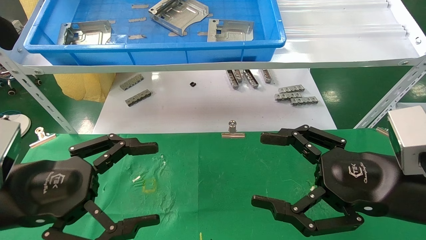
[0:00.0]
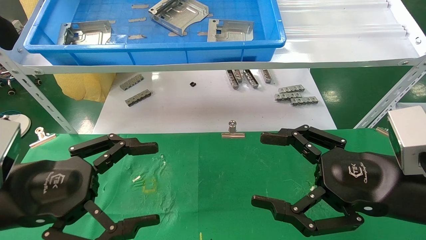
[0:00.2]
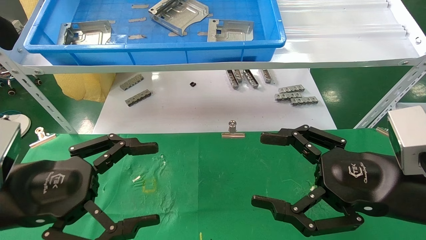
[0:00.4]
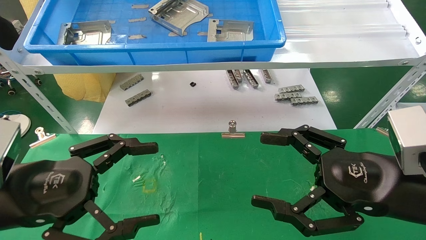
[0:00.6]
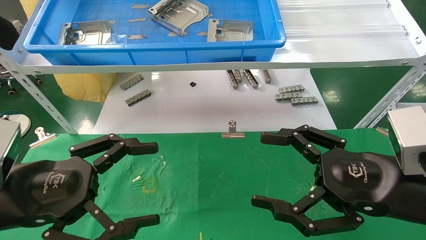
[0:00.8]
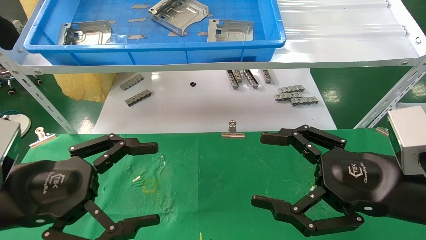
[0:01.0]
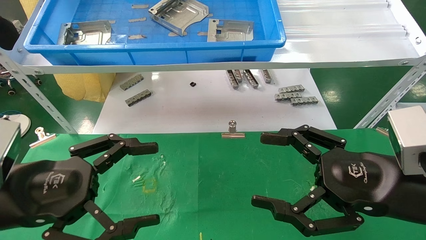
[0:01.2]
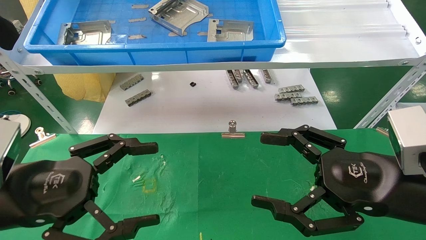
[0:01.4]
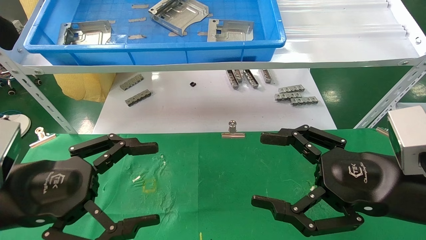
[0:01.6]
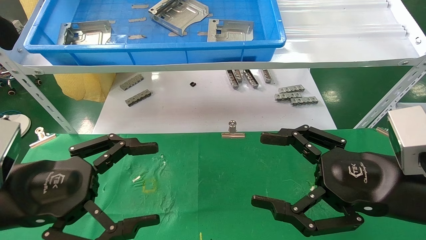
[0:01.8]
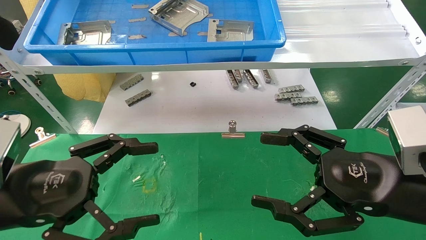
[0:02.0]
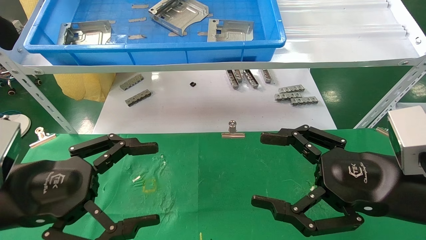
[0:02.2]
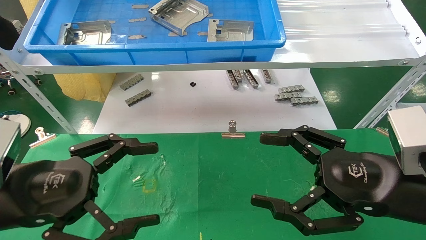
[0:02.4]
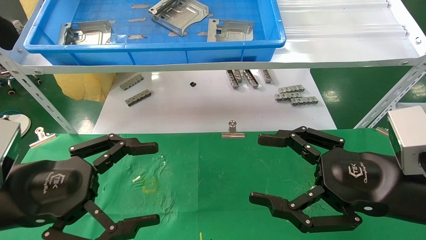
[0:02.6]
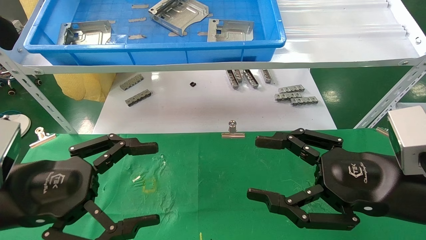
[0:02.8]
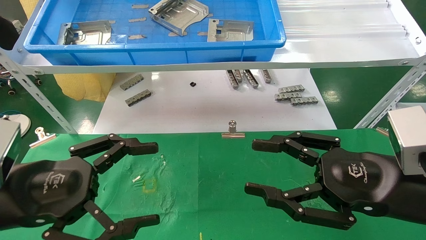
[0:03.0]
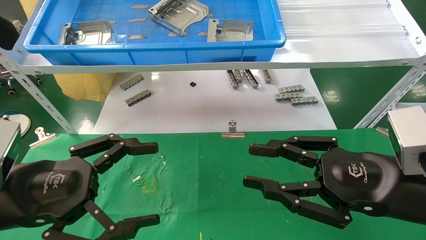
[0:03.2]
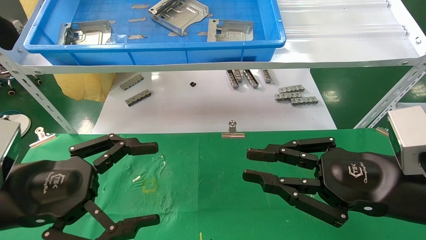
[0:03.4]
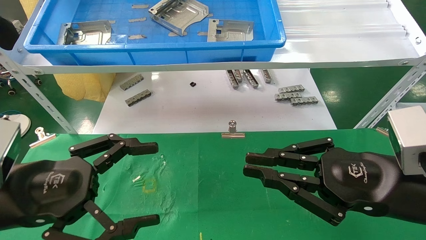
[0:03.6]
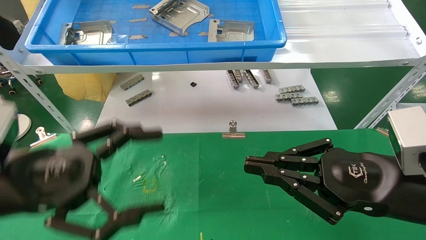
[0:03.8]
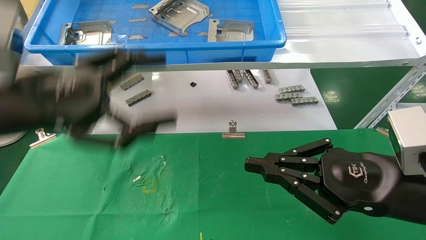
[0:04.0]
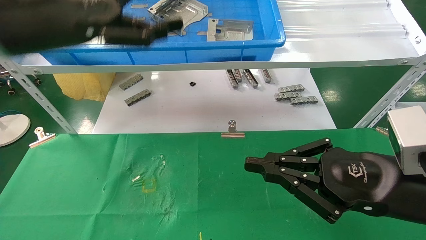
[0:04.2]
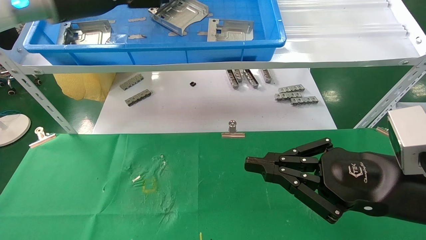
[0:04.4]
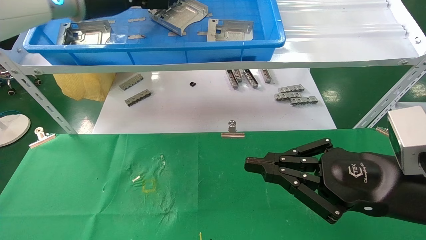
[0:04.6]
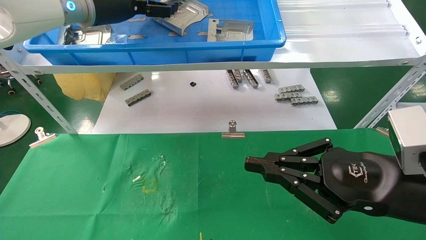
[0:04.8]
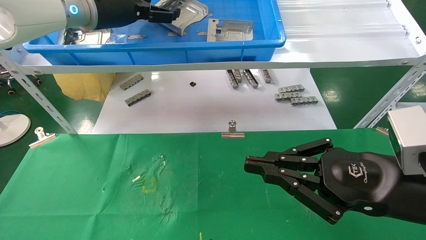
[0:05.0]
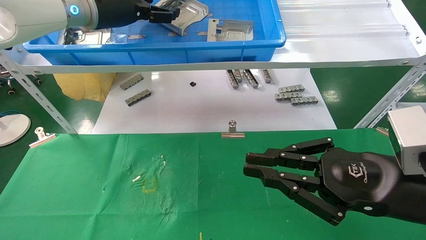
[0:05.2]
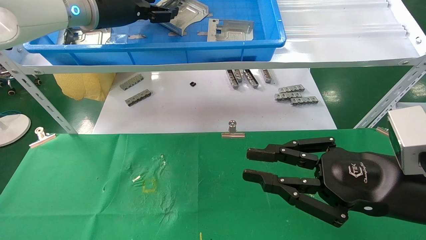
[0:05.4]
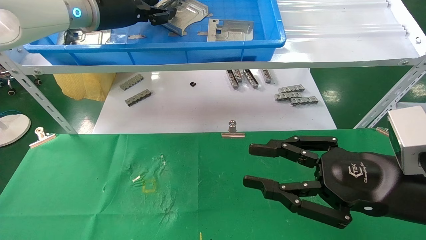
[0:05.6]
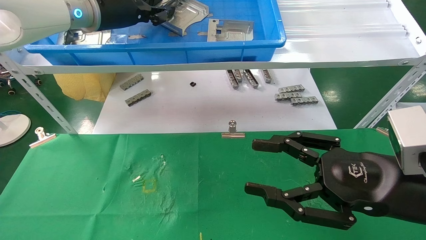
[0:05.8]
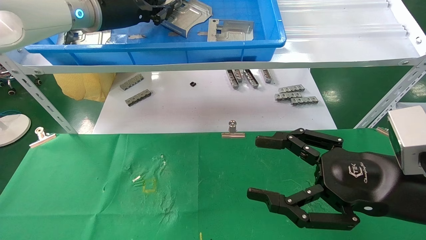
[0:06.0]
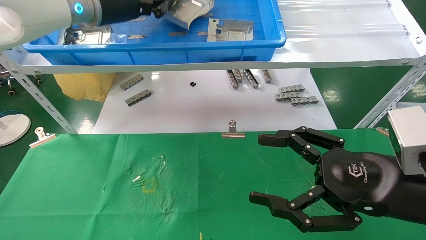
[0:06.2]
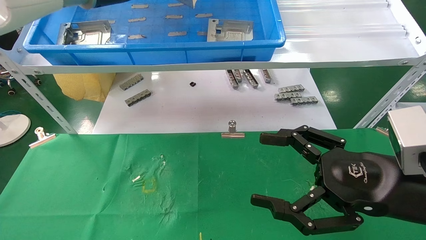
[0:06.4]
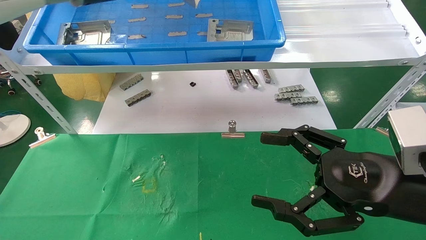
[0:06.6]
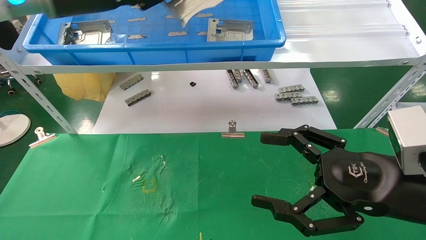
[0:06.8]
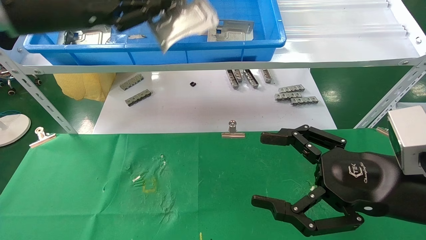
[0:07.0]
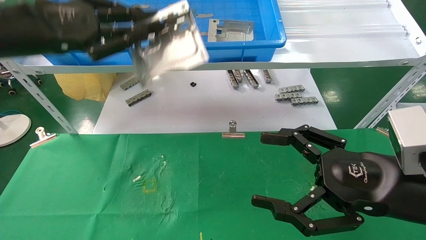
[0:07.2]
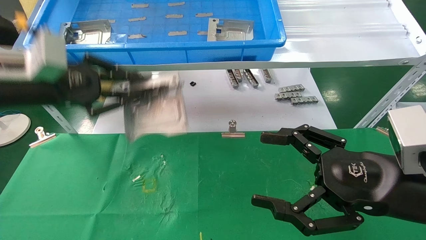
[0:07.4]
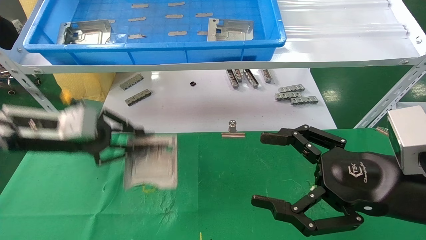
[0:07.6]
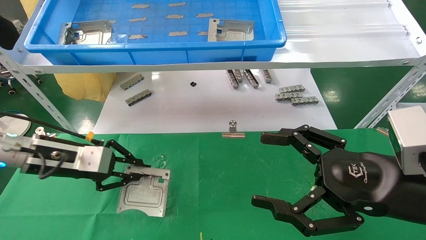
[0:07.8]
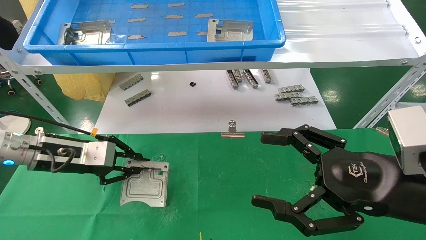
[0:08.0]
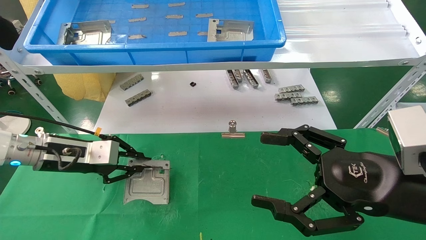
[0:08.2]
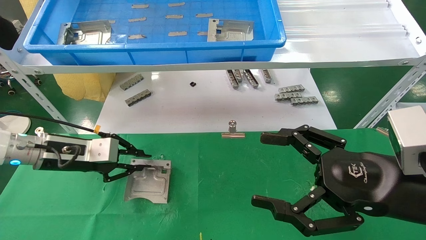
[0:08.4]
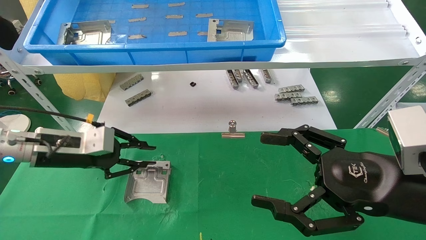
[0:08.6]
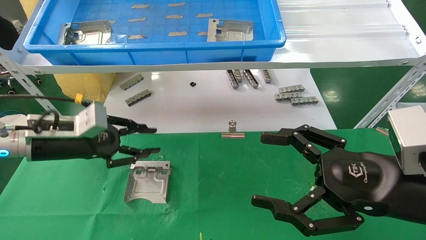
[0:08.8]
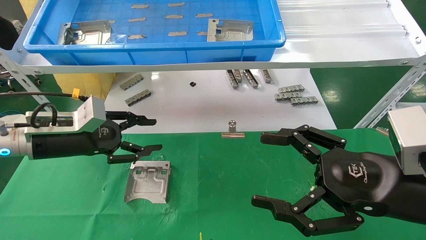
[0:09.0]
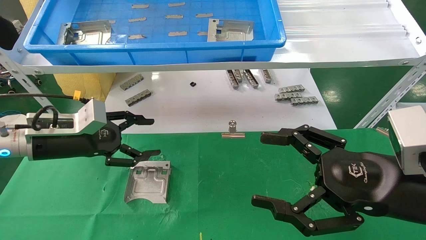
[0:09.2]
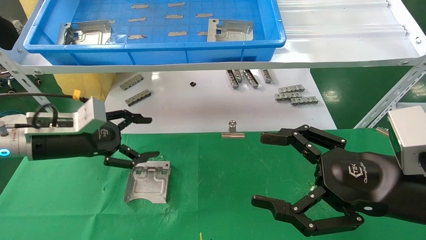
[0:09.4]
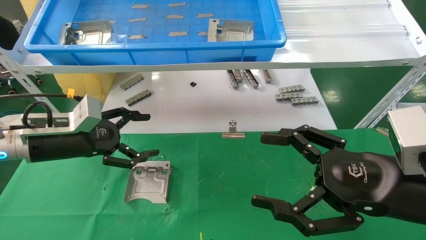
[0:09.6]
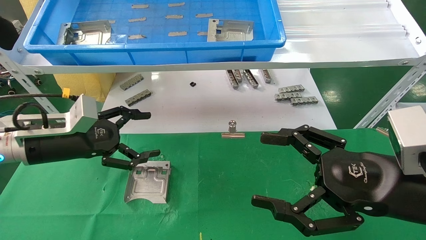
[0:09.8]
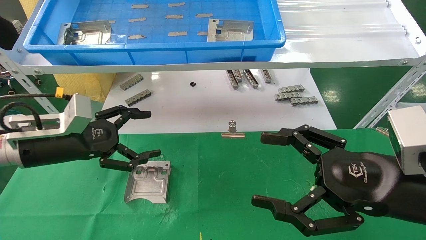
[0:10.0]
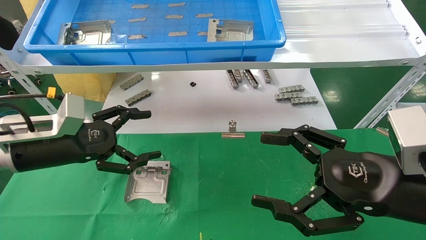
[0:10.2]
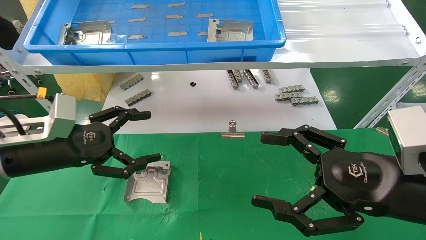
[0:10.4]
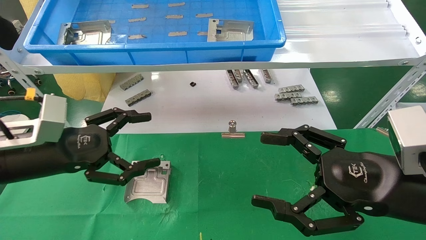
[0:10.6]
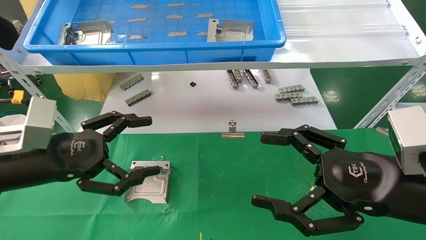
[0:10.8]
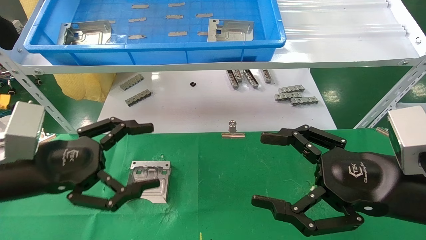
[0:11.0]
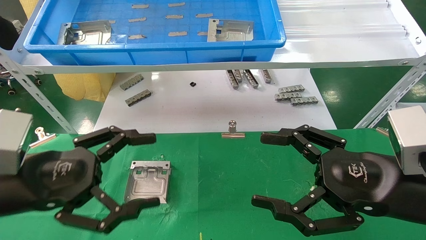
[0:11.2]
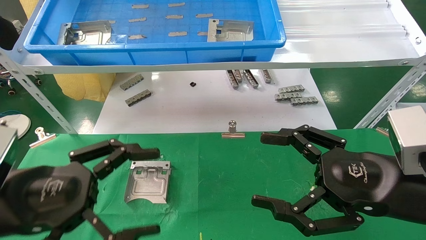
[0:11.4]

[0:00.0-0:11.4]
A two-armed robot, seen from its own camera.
Task of the whole recording: use the mechanical arm to pick up the parts and place them on the table.
Step, 0:04.0 to 0:05.8: Pick up the hard drive bracket from the feeding area.
Step, 0:06.0 to 0:08.8: Place the hard drive bracket into the box.
0:00.0 to 0:02.8: Both grippers stay put.
0:02.8 to 0:04.2: The left gripper moves upward and forward, roughly 25 cm. The right gripper closes up.
0:04.2 to 0:05.6: The left gripper travels forward by some 10 cm, and closes.
0:05.6 to 0:07.2: The left gripper is displaced backward, to the left and downward by roughly 15 cm, and closes. The right gripper opens its fingers.
0:07.2 to 0:08.6: The left gripper travels downward by roughly 20 cm.
0:08.6 to 0:10.0: The left gripper opens.
0:10.0 to 0:11.4: The left gripper shifts approximately 15 cm backward.

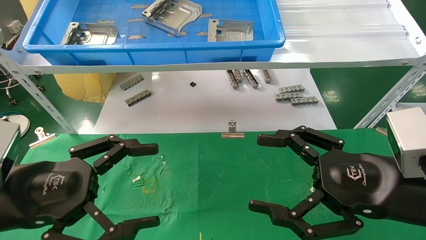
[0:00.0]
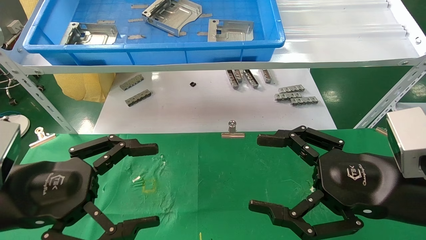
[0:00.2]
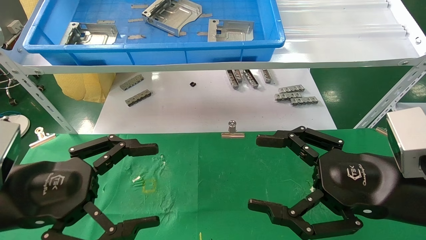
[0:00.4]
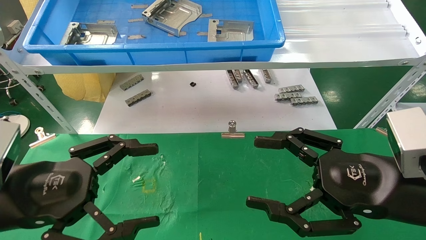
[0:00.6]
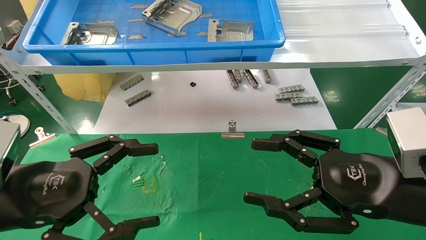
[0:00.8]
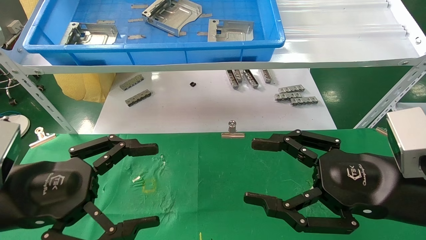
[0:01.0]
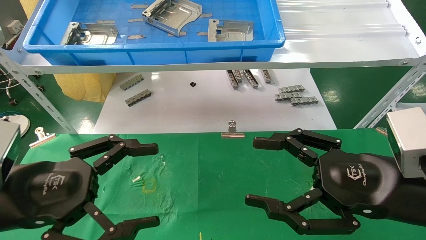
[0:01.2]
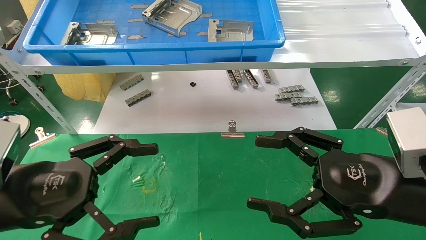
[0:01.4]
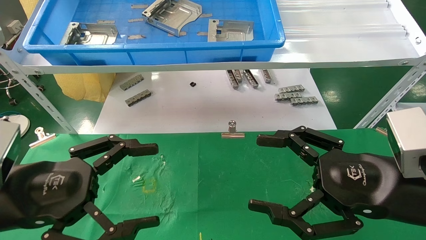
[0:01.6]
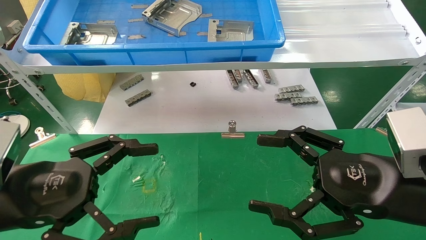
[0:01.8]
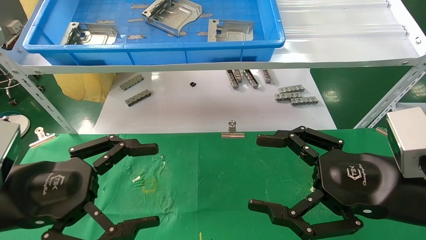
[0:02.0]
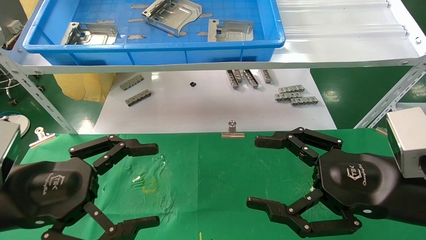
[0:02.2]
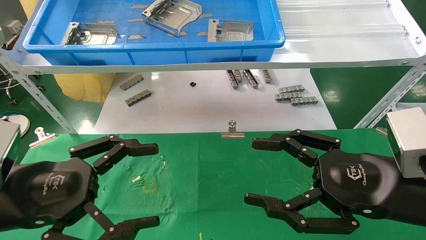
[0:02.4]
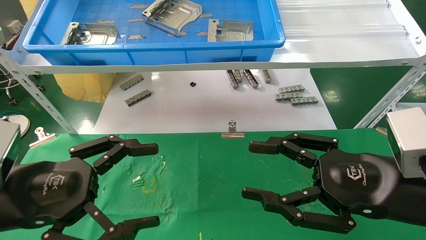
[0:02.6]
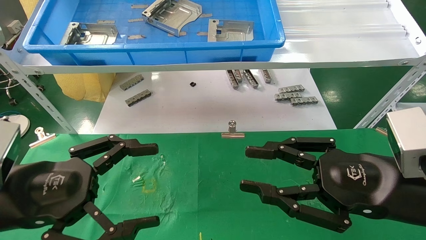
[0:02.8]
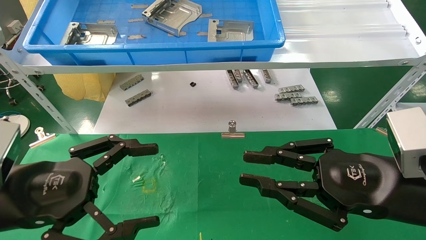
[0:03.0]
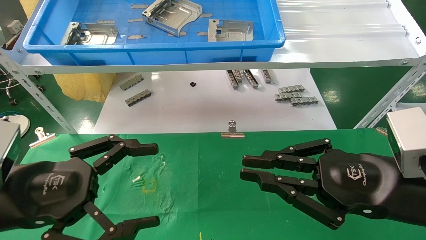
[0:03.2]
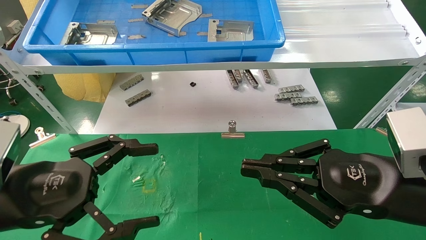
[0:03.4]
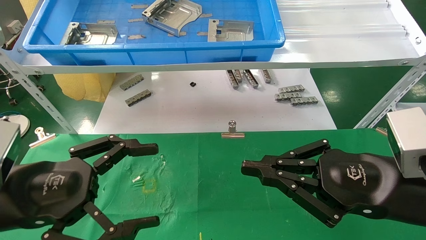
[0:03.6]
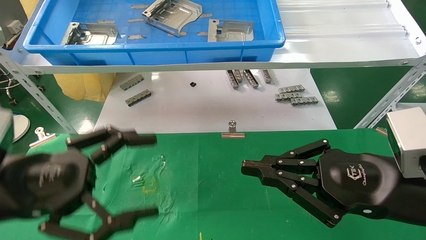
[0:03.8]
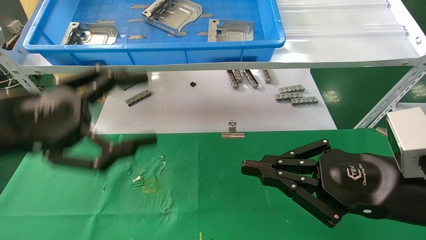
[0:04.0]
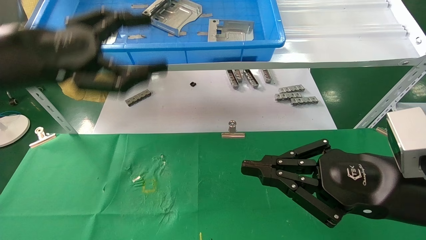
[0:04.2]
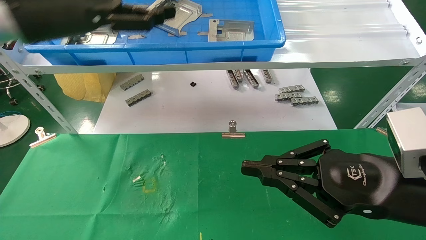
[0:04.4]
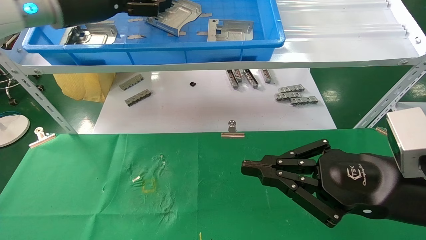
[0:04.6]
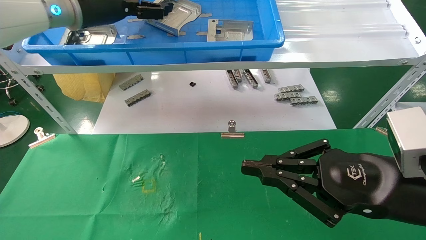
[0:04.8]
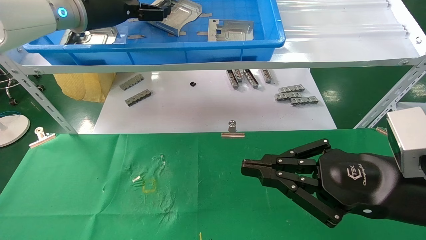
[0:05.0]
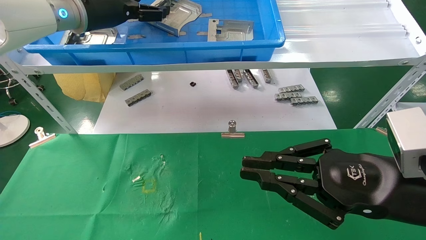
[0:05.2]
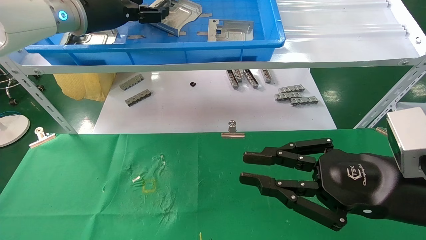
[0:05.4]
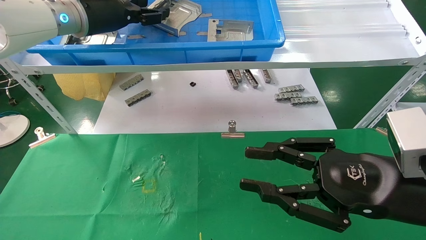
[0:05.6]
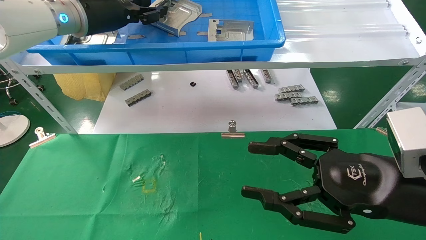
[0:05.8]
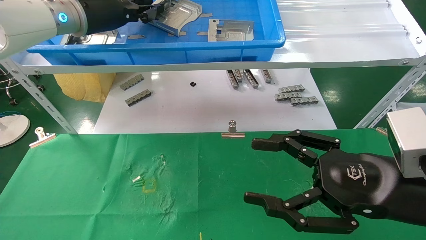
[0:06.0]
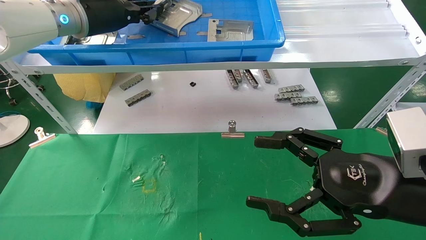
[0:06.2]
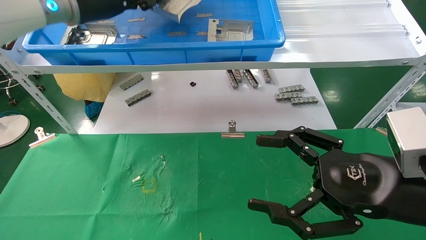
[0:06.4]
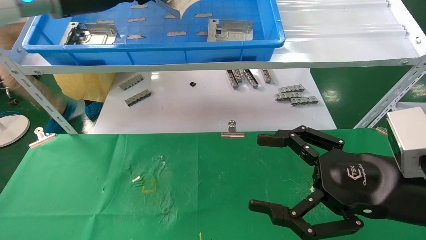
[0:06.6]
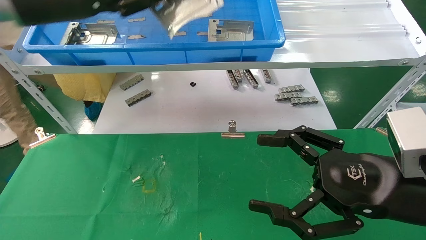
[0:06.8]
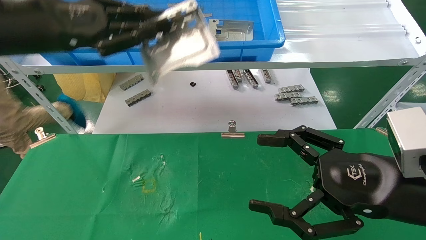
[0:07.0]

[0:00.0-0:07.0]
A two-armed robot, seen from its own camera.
Task of the whole recording: use the mechanical arm to pick up the parts and place them on the table.
Step, 0:04.2 to 0:06.6: Pick up the hard drive bracket from the feeding area.
0:00.0 to 0:02.8: Neither gripper changes place.
0:02.8 to 0:04.2: The right gripper closes its fingers. The left gripper goes roughly 15 cm upward and forward.
0:04.2 to 0:05.6: The left gripper shifts about 15 cm forward and upward.
0:05.6 to 0:07.0: The left gripper heads backward and to the left, covering roughly 15 cm, and closes up; the right gripper opens up.
